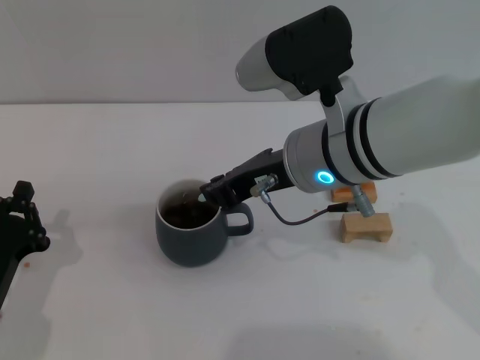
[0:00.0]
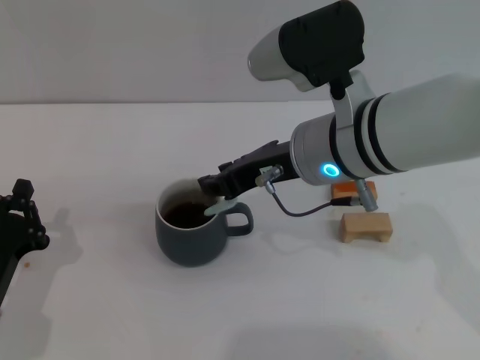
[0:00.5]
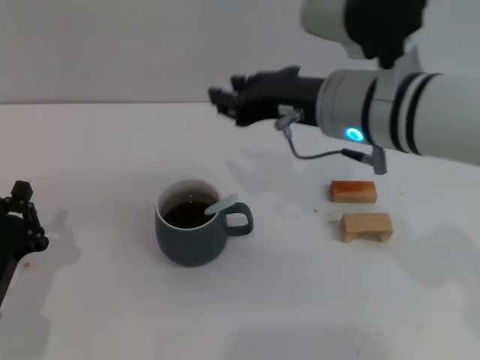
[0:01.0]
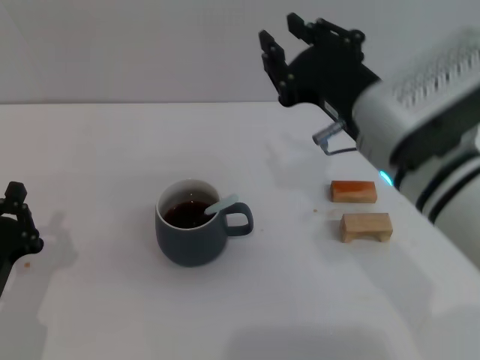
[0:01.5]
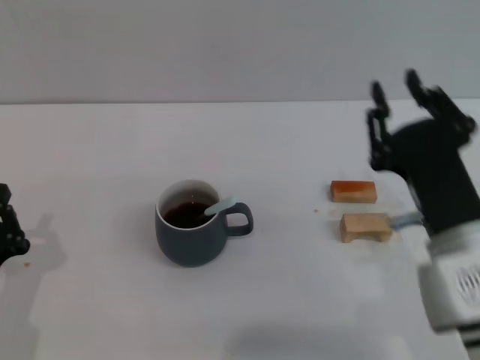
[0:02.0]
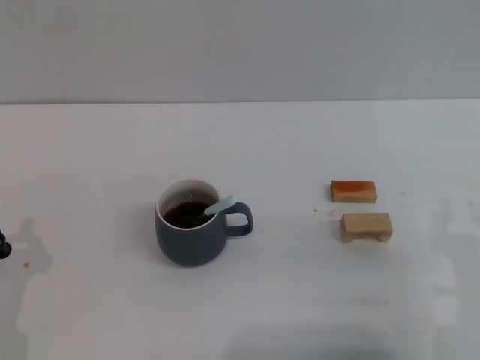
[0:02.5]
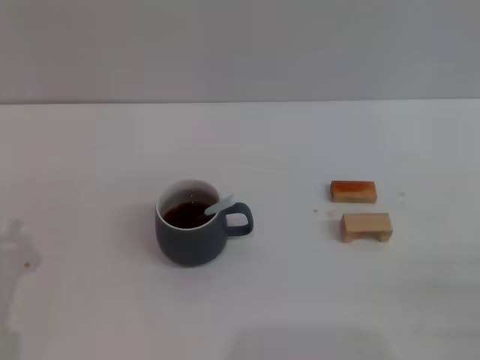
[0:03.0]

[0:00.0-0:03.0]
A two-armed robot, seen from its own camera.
Task of the whole recording: Move the grey cup to the center, lift the blue spoon, stir it three times in the cup, and put the spoon into the cup.
0:00.0 to 0:01.5: The right gripper moves some 5 cm.
0:01.5 to 0:03.0: The right gripper travels to the right, downward and backward by roughly 25 cm.
